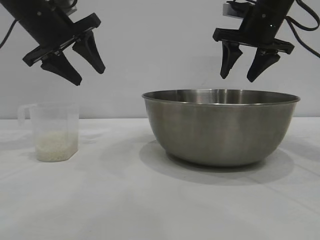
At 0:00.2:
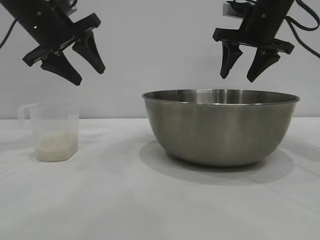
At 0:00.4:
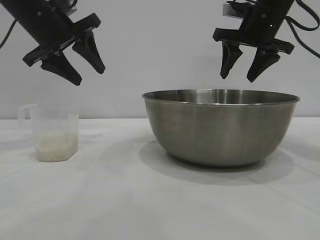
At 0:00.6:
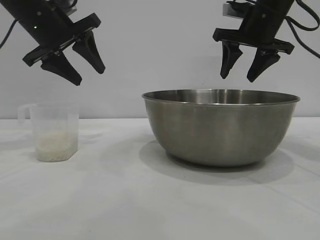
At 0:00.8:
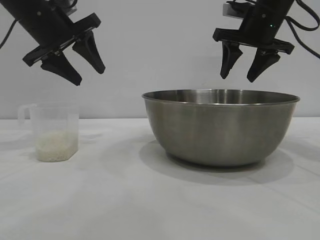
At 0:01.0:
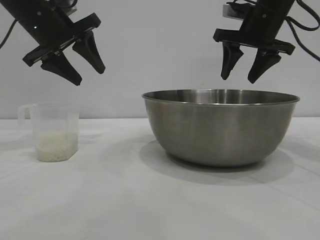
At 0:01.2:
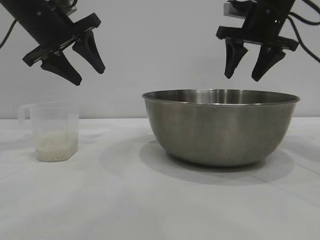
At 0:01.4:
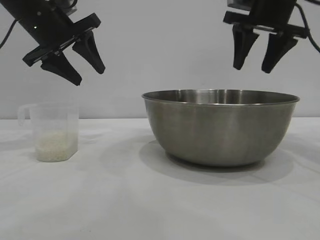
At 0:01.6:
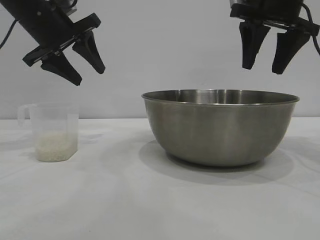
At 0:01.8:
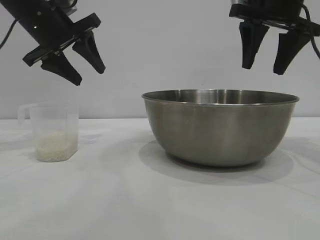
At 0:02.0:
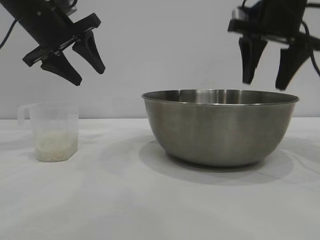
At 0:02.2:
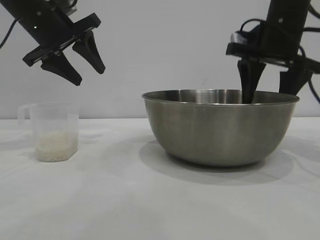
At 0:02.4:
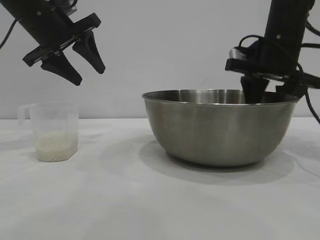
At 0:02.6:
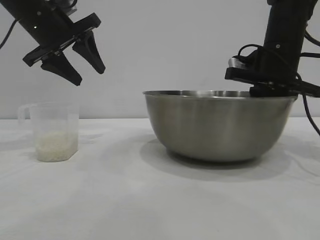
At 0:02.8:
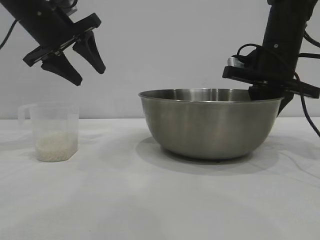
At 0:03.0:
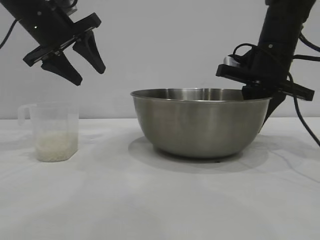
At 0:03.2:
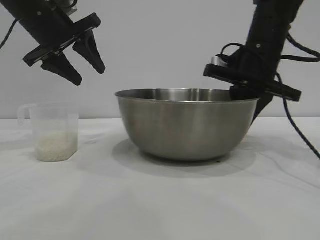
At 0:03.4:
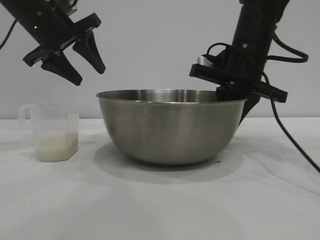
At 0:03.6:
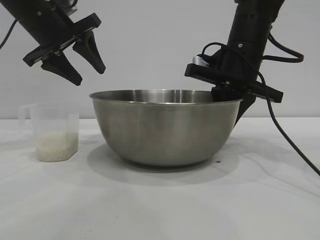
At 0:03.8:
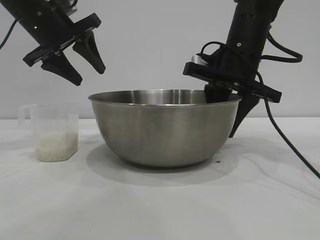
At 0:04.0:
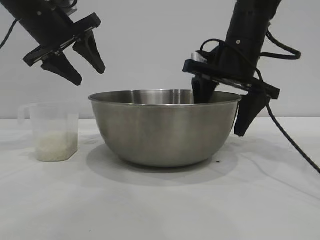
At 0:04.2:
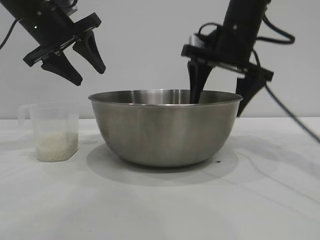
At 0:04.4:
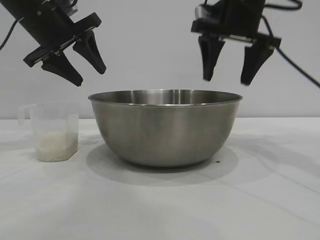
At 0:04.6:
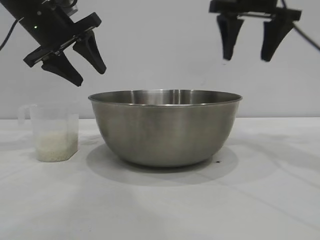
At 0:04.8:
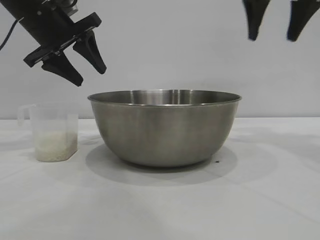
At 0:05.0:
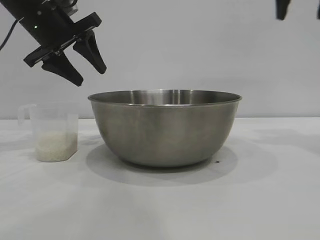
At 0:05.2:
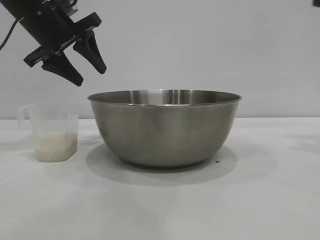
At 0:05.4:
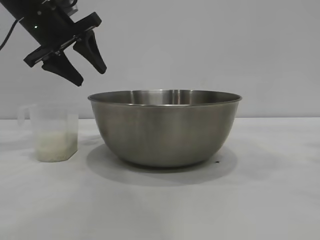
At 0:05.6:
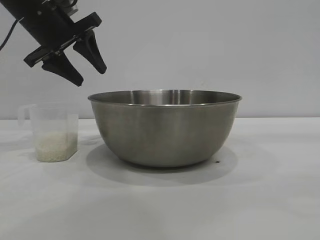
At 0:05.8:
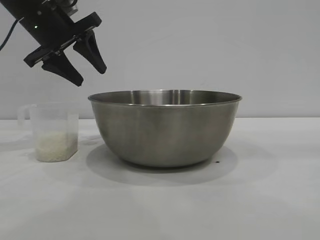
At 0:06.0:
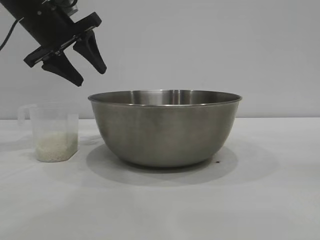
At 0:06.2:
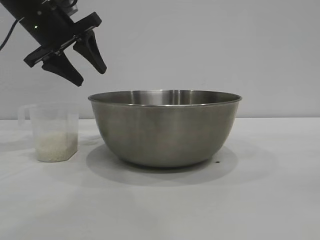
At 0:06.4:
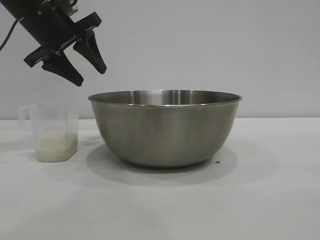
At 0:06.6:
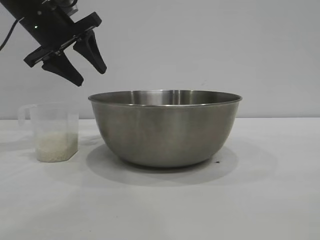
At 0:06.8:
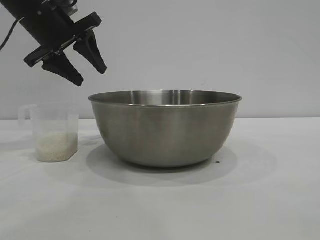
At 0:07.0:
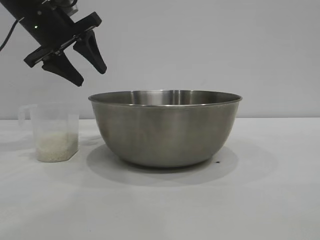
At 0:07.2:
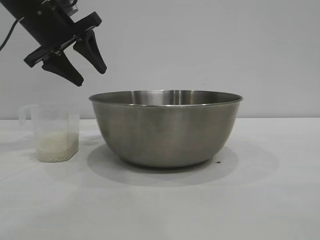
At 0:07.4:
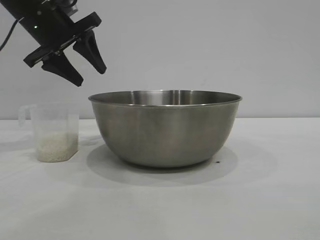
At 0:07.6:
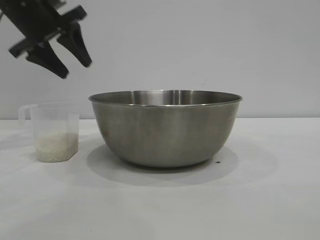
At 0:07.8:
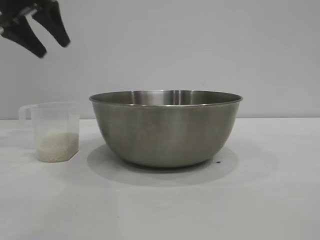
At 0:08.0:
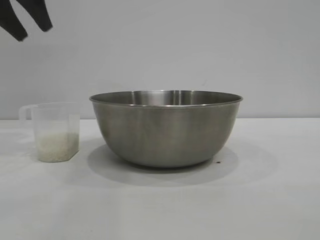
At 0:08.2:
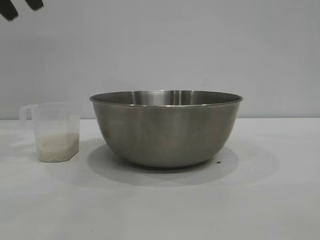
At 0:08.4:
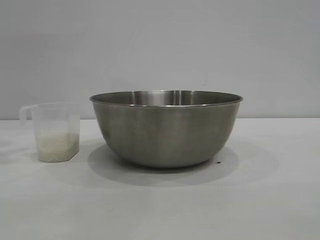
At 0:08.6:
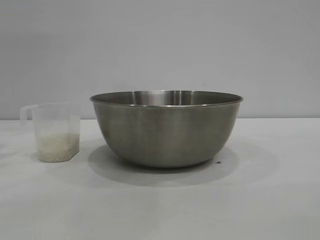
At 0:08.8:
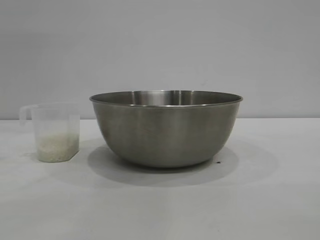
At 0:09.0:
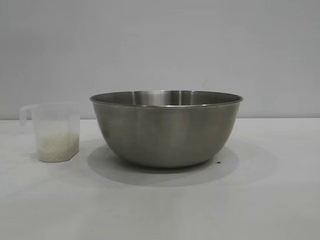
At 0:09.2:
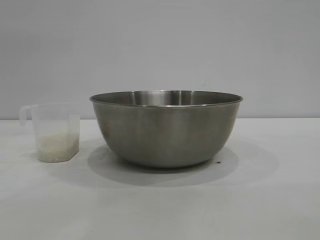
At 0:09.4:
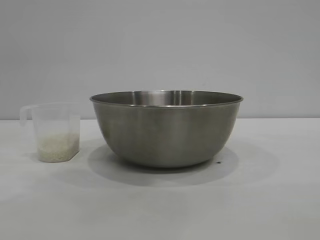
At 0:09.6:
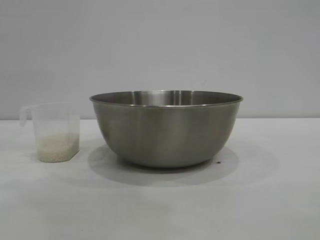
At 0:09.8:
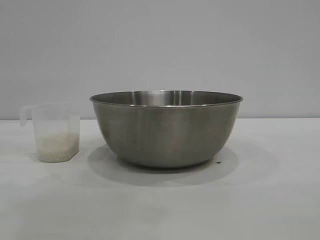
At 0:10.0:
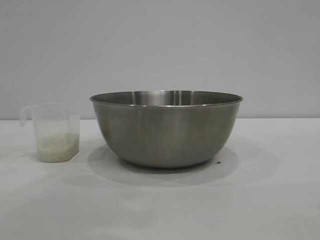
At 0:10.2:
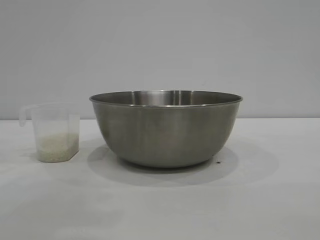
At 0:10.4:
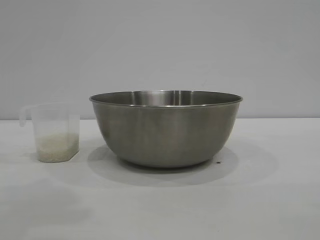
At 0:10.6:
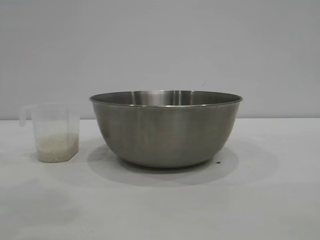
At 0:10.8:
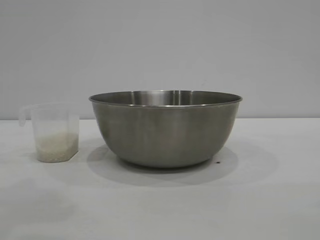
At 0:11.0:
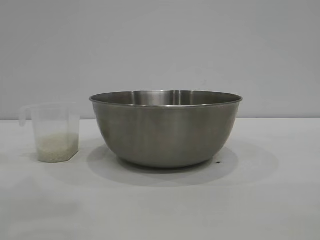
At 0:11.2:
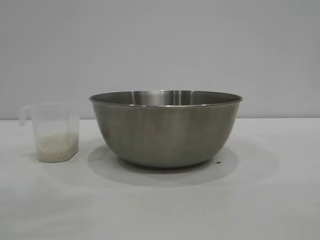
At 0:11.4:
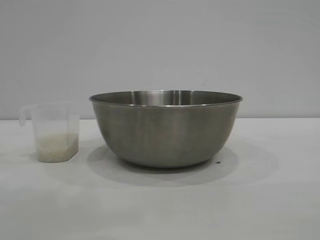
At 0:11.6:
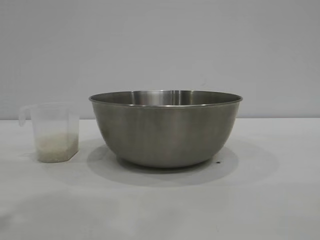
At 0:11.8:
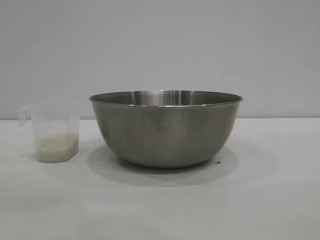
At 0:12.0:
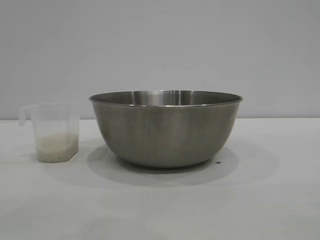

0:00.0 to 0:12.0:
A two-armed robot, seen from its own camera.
Task of the whole recording: the right gripper grasp the rice container and place it in the center of the table, the left gripper grasp the rice scoop and pour the rice into the rice container.
Step, 0:00.0 to 0:04.4: Move the bowl to the center of view with the right gripper.

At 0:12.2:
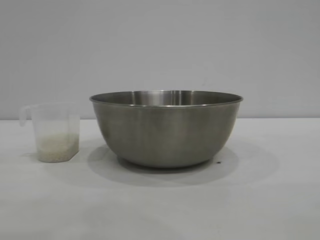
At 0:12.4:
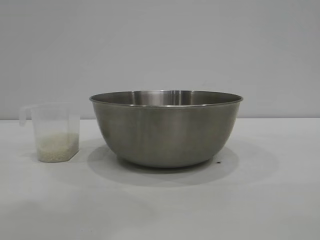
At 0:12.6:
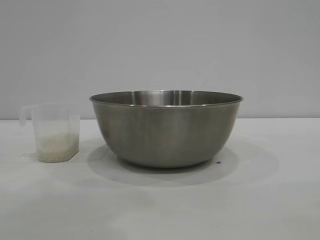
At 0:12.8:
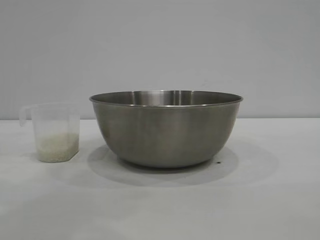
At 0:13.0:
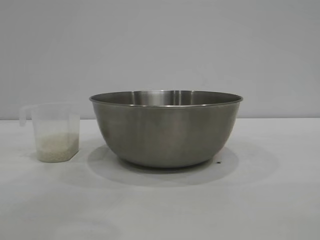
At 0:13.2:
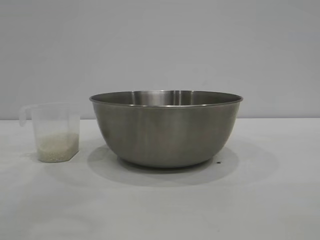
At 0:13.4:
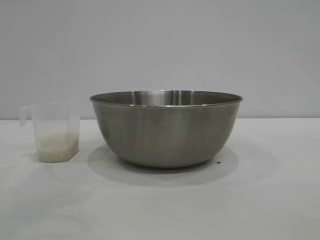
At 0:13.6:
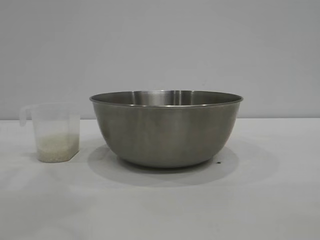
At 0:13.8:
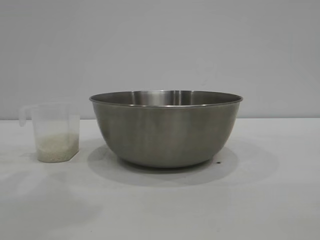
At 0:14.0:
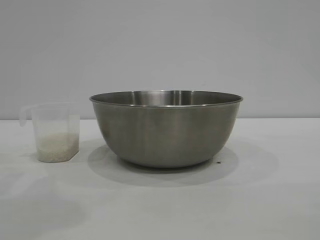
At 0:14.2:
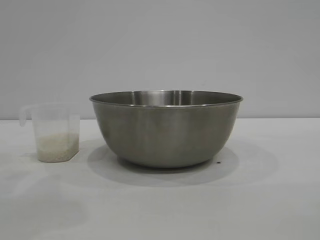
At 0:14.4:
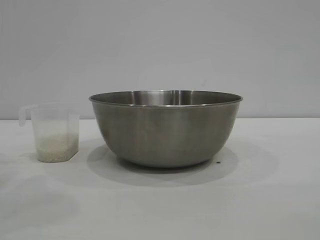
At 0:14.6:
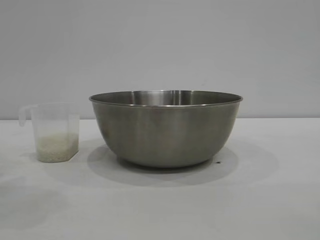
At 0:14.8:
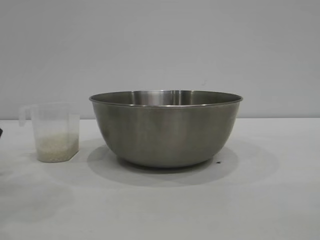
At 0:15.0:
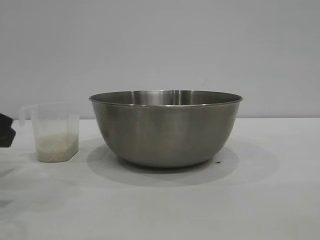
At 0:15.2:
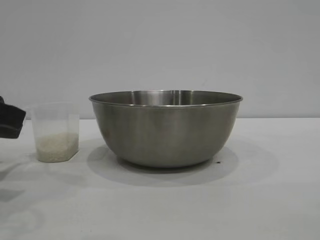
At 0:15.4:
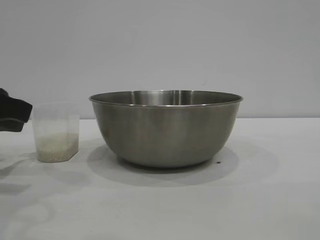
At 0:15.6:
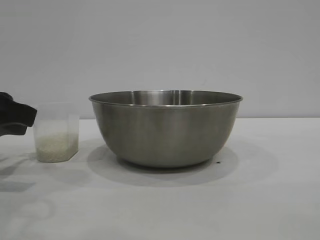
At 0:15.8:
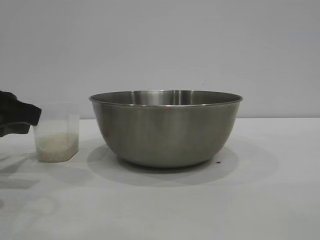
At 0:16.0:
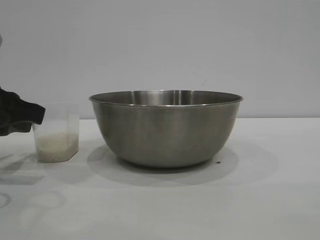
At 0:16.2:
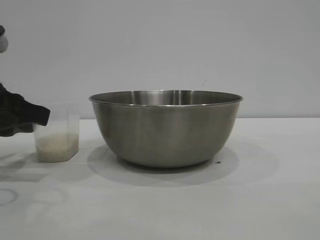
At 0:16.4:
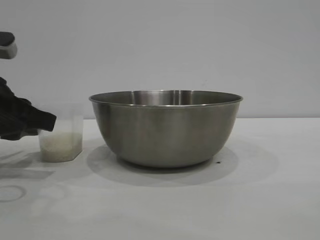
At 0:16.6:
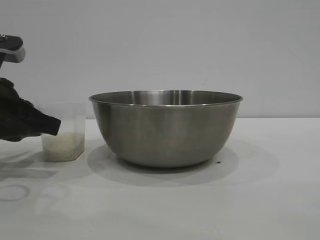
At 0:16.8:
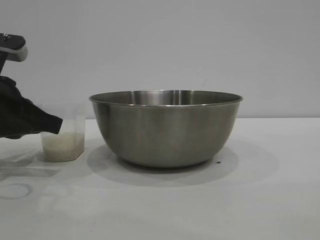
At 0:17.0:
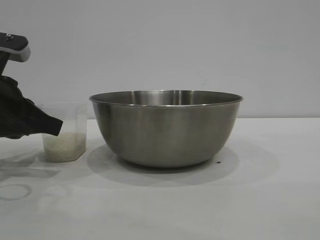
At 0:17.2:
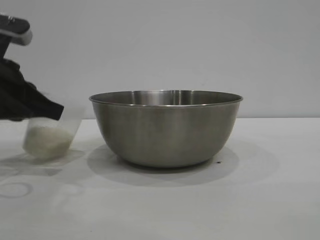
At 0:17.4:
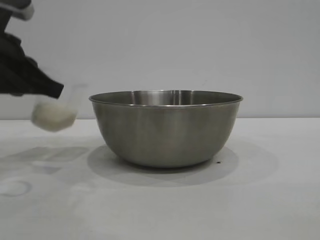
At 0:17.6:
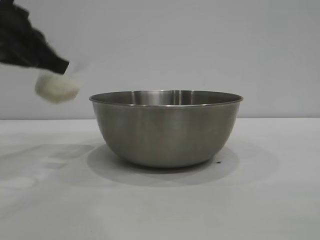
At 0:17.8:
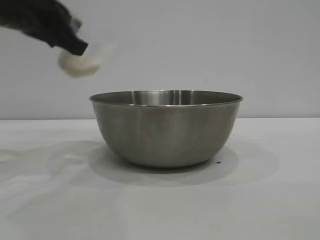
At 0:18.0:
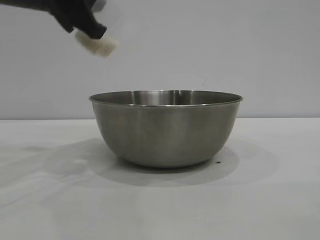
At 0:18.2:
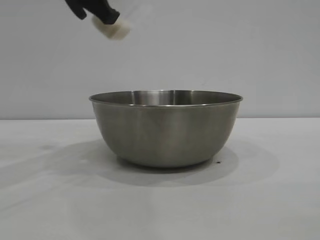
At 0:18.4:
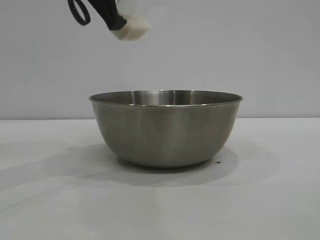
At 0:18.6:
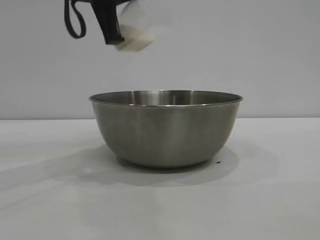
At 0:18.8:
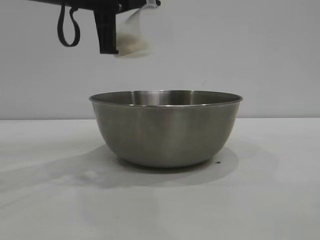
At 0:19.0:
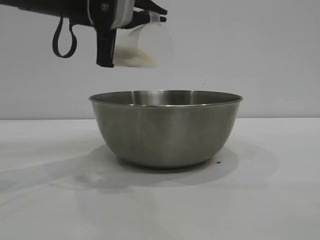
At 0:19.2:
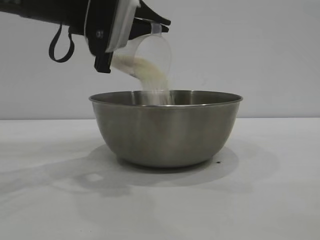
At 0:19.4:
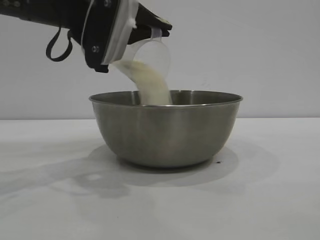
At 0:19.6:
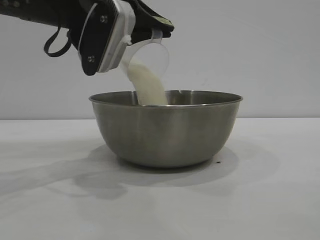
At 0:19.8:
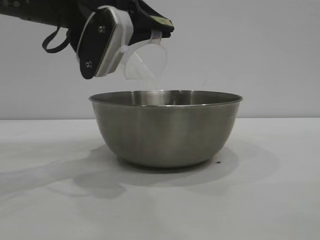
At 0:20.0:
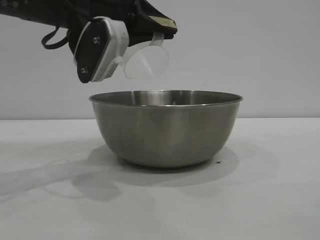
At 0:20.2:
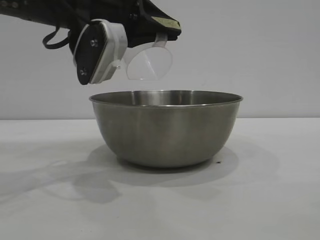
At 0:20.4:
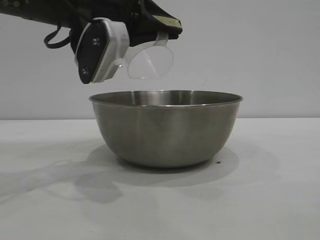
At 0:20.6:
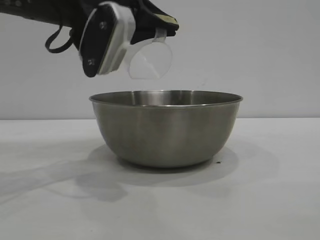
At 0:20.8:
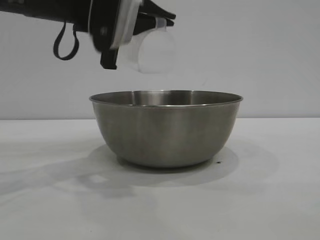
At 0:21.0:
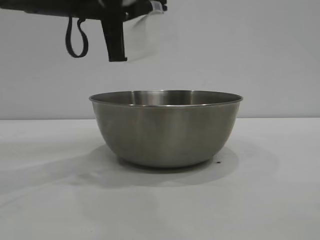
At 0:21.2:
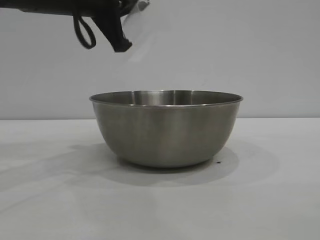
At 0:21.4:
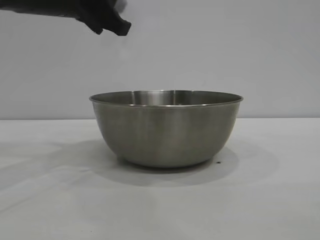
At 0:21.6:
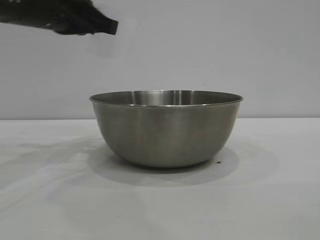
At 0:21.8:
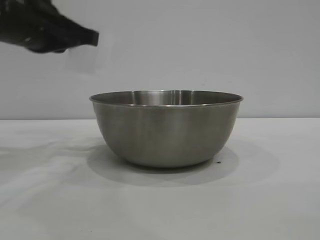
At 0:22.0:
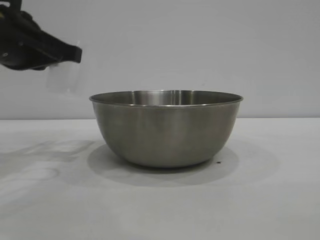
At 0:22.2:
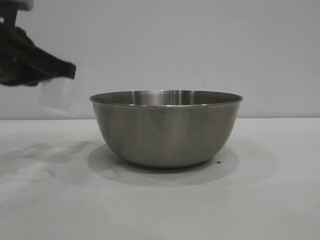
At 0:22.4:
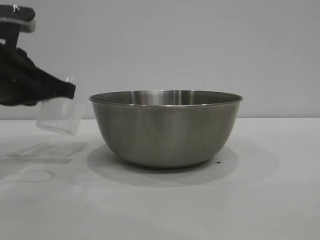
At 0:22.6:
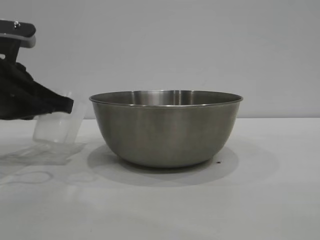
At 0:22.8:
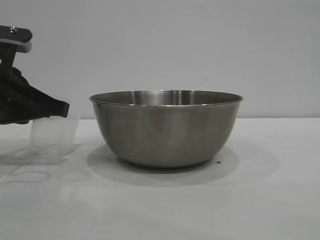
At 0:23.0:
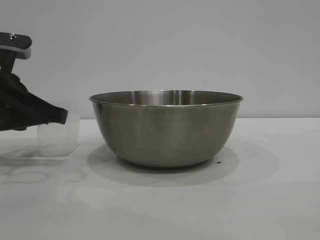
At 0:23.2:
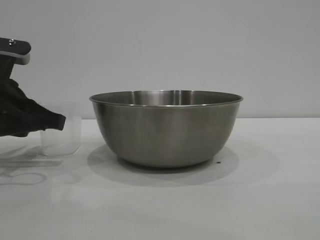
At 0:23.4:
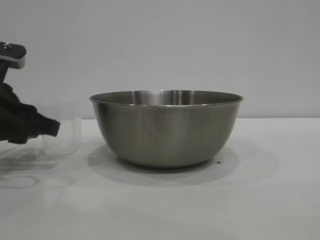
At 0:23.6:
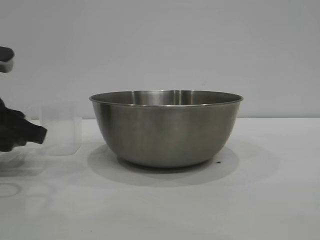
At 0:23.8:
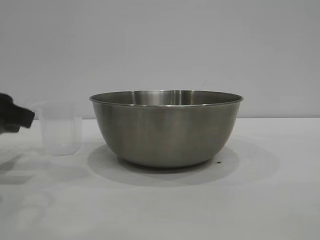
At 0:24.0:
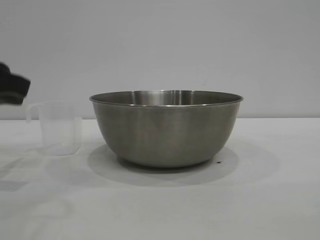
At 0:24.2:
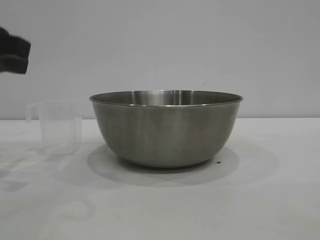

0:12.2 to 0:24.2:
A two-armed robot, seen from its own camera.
Task of the whole recording: the right gripper grasp the rice container and place it in the center of the table, the left gripper grasp the rice scoop and pour the rice into the rice container.
Step, 0:12.2 to 0:17.2: Pick up the cup with rice in it with the left gripper.
Step, 0:17.6 to 0:20.8: Pour the rice from the cup into the bowl with the left gripper.
Step, 0:21.0 to 0:23.8: Place the cup on the table with the left gripper.
